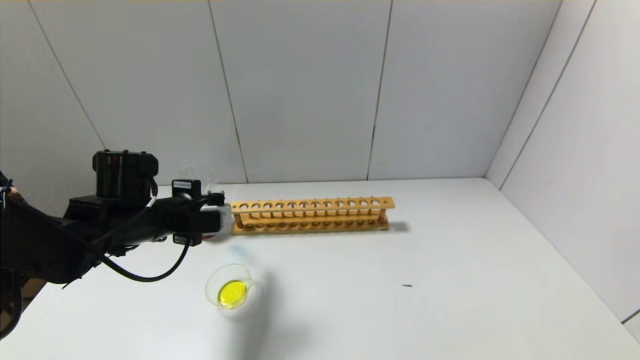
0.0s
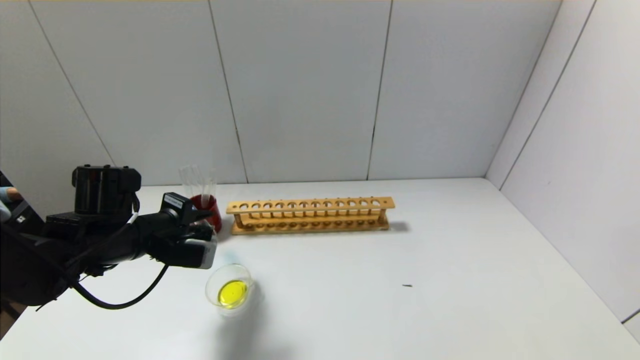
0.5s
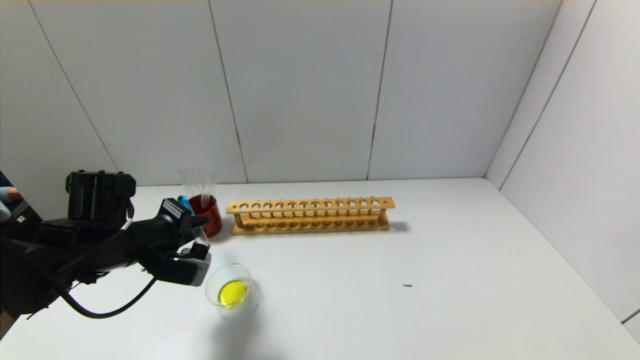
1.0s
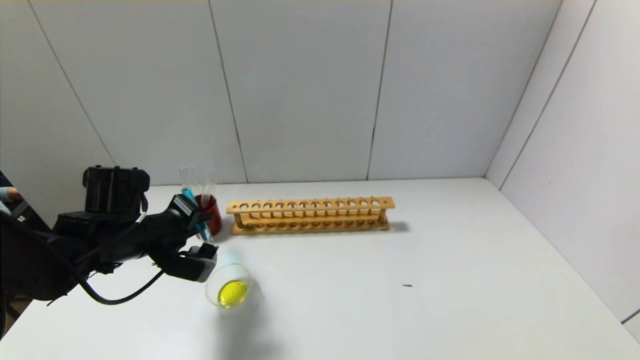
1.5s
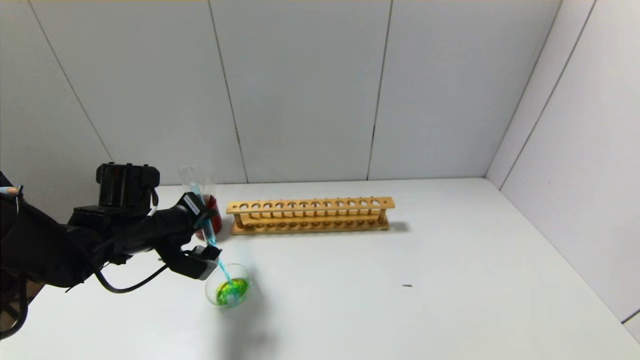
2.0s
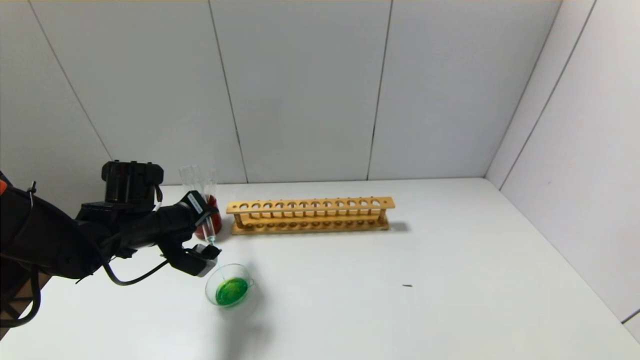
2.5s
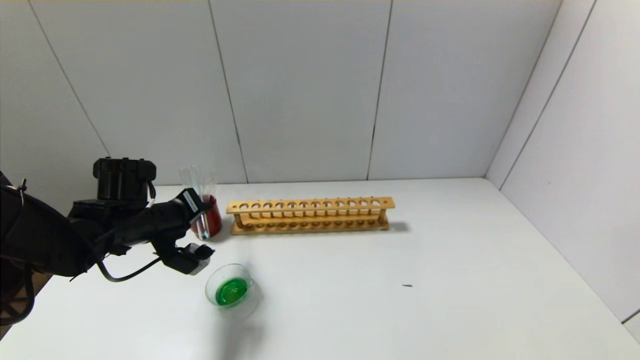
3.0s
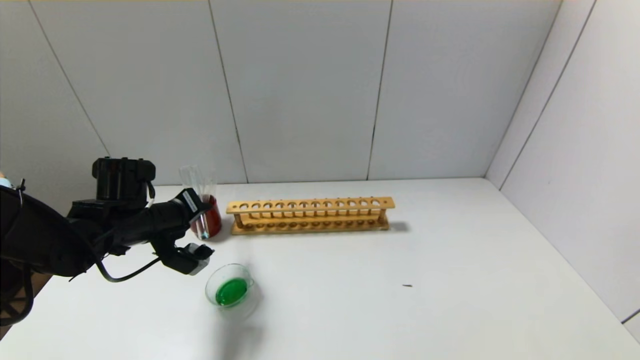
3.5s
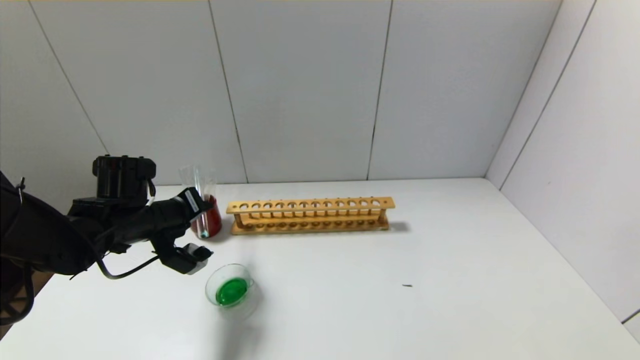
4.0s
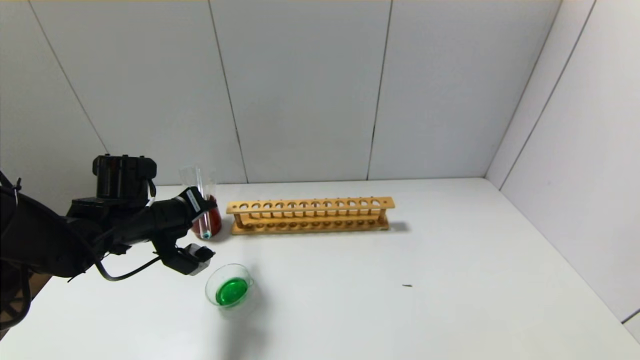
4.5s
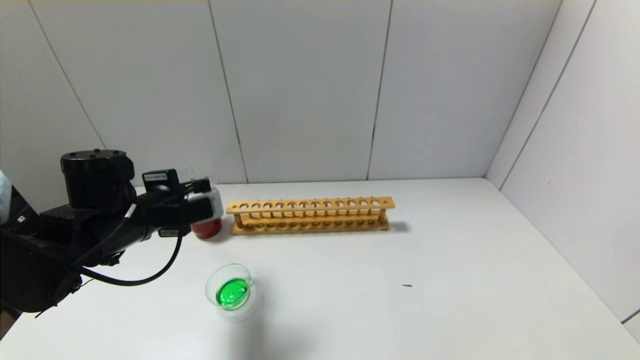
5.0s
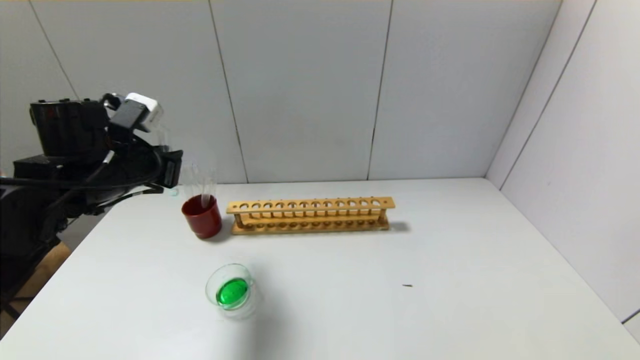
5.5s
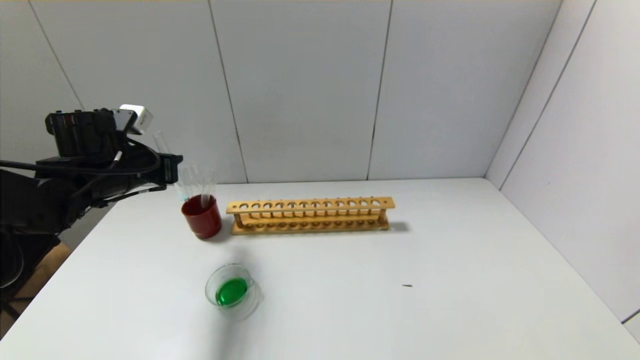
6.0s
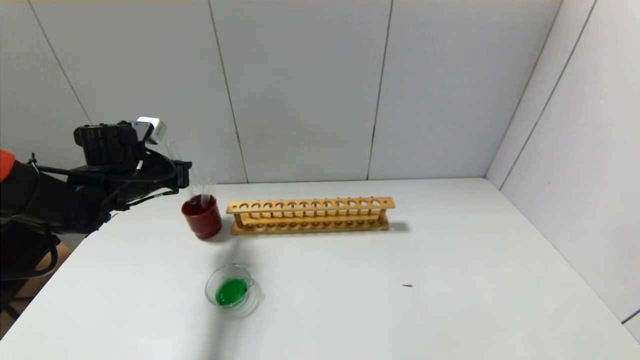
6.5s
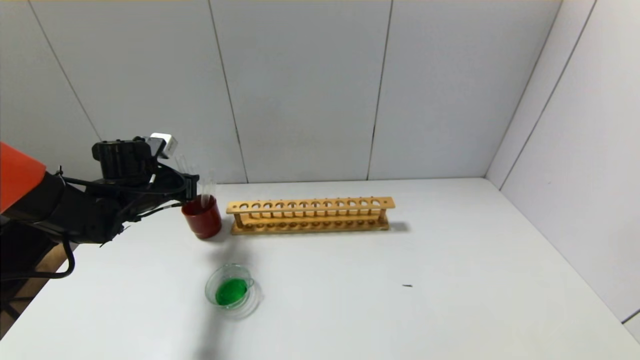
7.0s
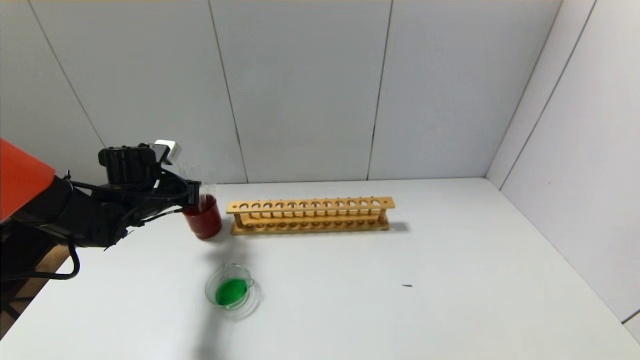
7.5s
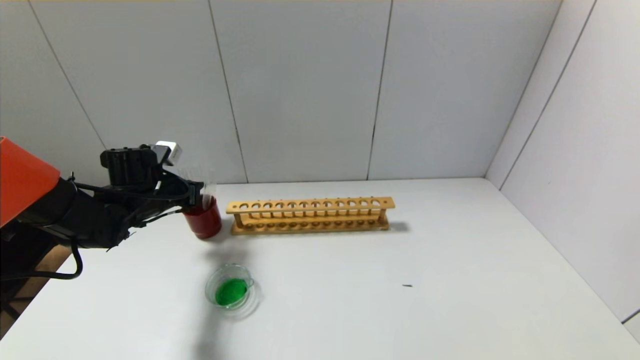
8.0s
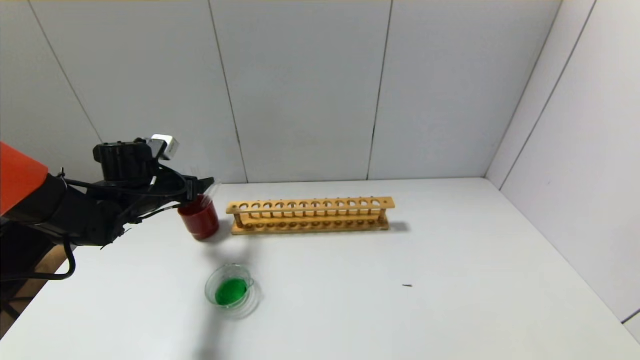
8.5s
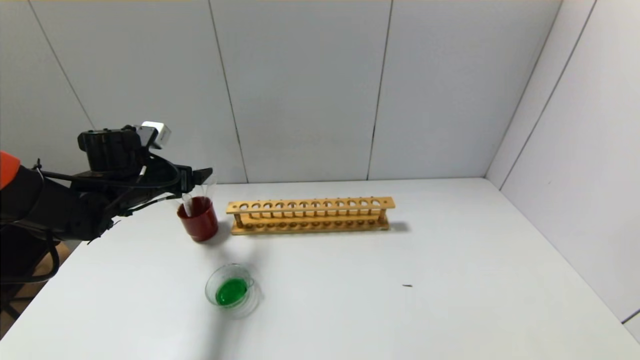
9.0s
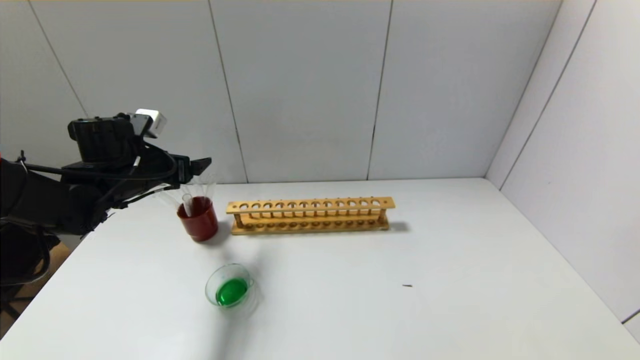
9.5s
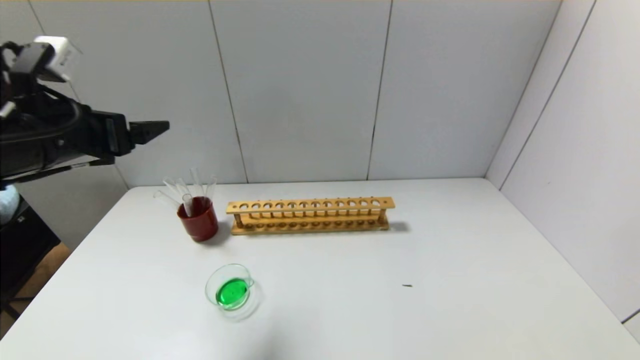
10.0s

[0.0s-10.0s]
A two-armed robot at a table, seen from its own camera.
Step, 0.0s to 4.5s: Pour the blue reagent into the graduated cylinder with the left gripper.
Step, 5.0s to 8.0s: Place the test tube into the brown cup with the left gripper.
2.0s to 4.0s: There are only small adjustments of the grippers.
4.0s to 6.0s: The left gripper moves upward, approximately 5 cm.
6.0s to 8.0s: The left gripper is displaced downward by about 10 cm.
8.0s to 10.0s: The left gripper is displaced upward and backward by approximately 20 cm, and opens its fingers.

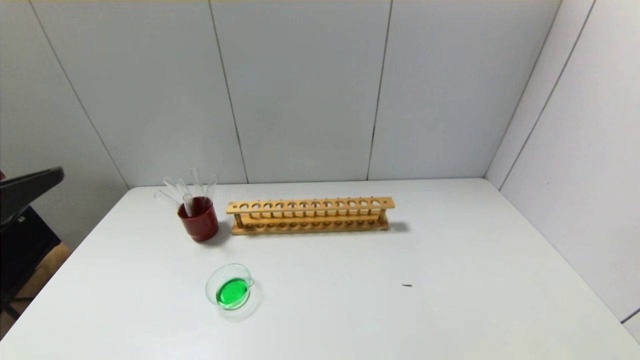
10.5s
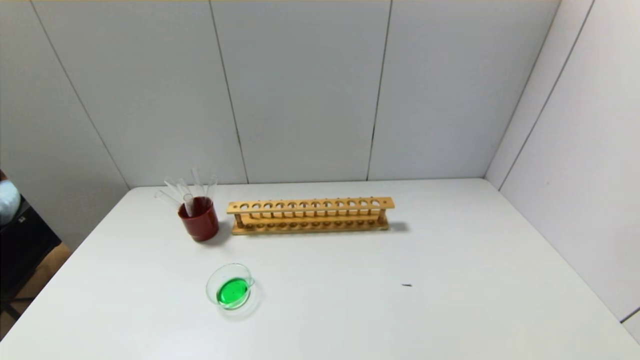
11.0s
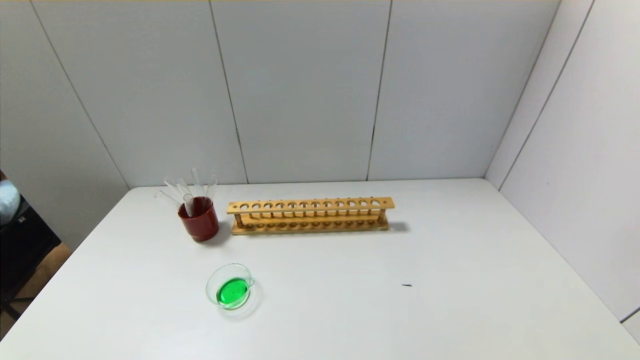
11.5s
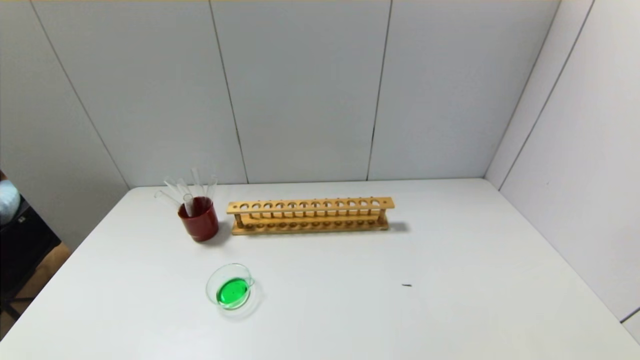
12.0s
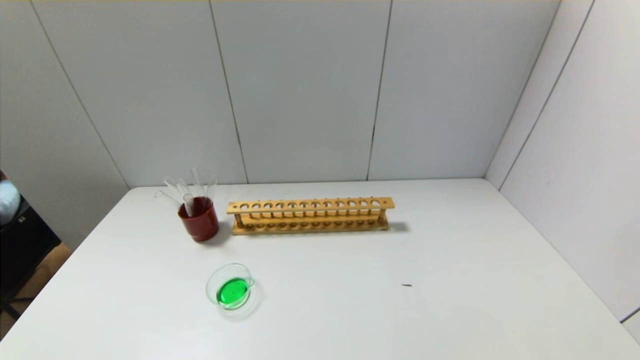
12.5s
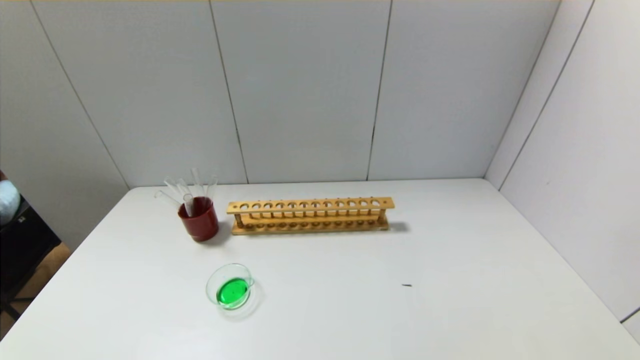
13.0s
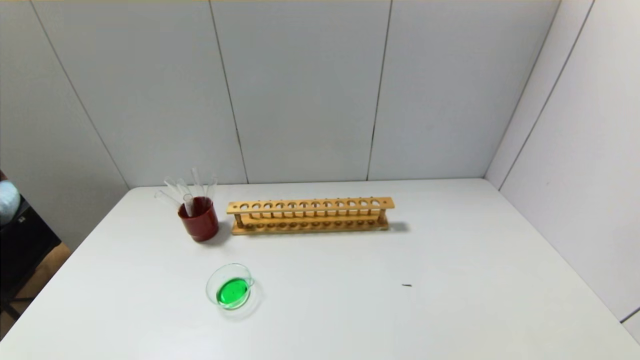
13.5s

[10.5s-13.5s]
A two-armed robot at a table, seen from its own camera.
10.5s to 12.0s: The left gripper heads downward and backward, covering some 25 cm.
12.0s to 13.5s: Both grippers stay about where they are.
